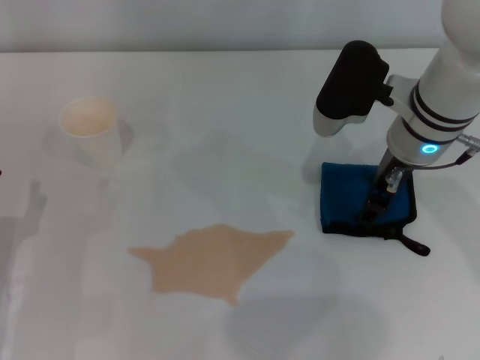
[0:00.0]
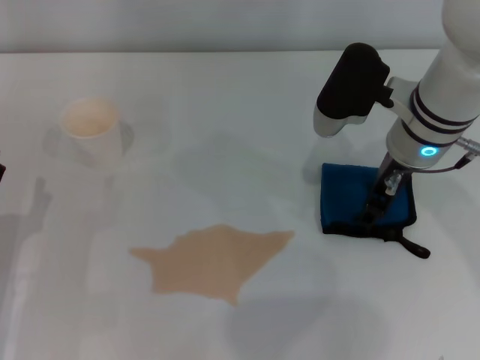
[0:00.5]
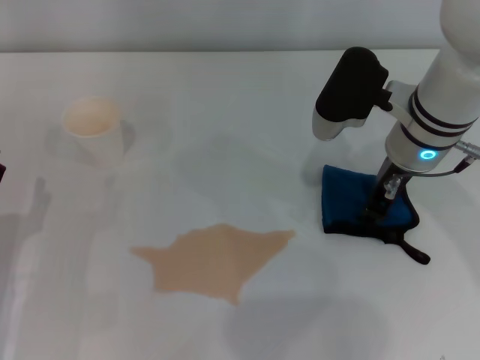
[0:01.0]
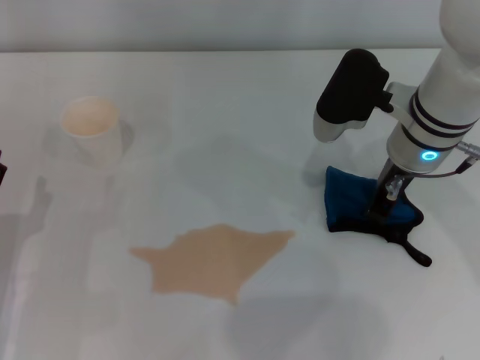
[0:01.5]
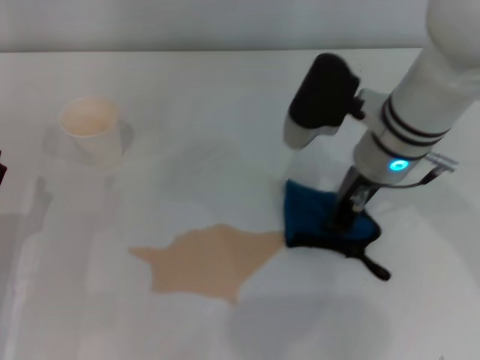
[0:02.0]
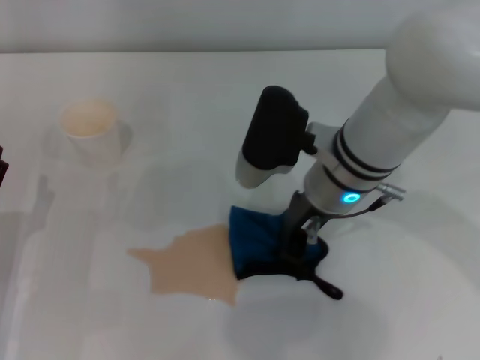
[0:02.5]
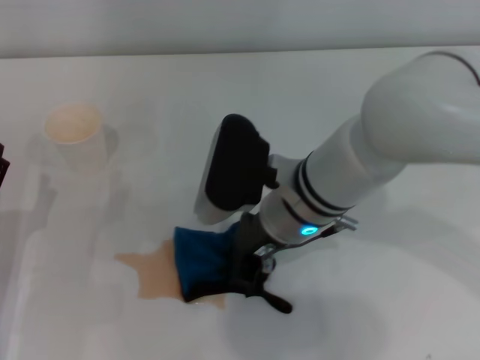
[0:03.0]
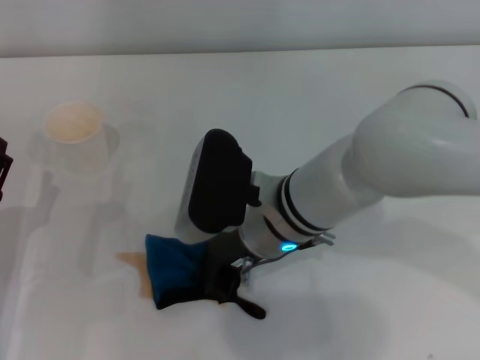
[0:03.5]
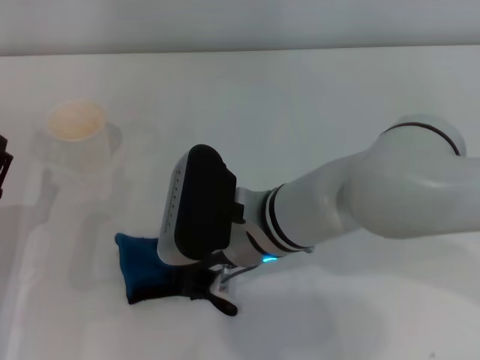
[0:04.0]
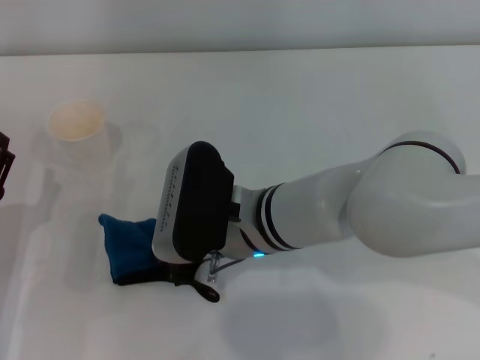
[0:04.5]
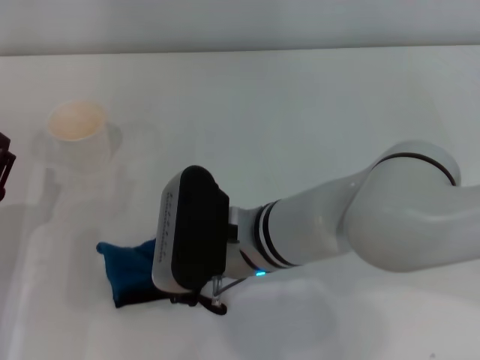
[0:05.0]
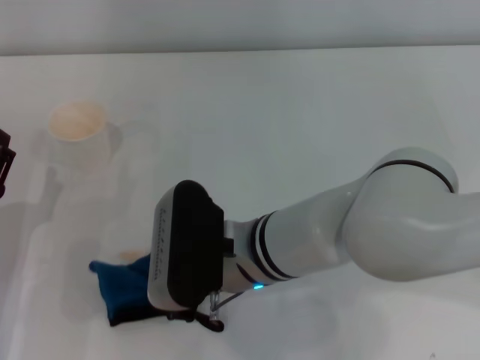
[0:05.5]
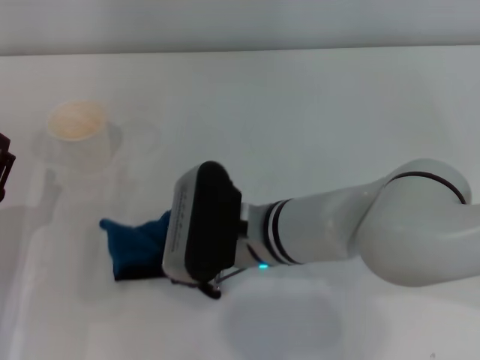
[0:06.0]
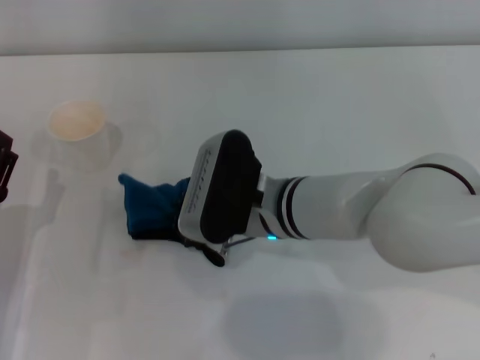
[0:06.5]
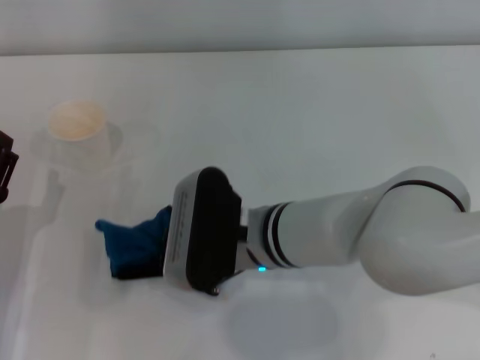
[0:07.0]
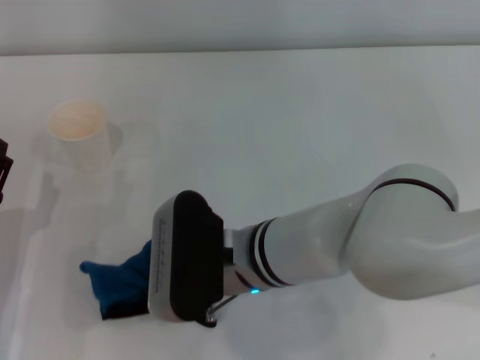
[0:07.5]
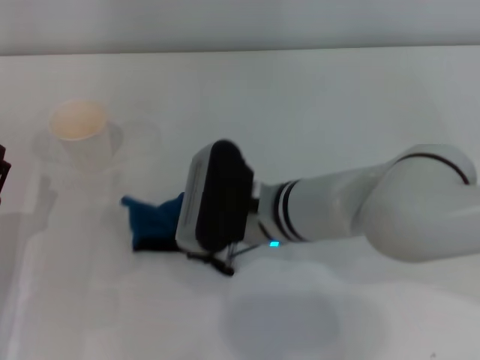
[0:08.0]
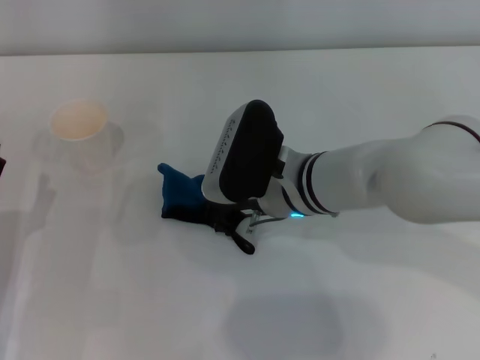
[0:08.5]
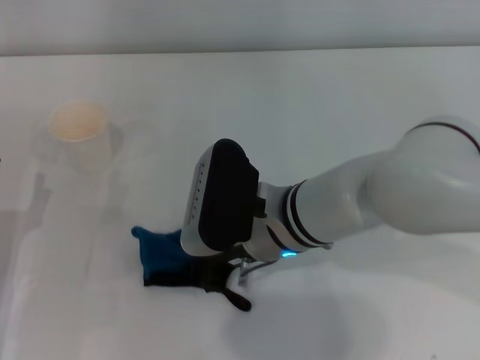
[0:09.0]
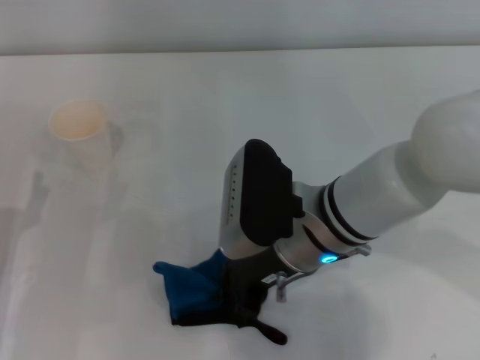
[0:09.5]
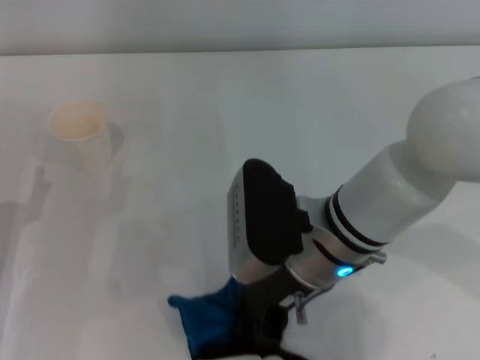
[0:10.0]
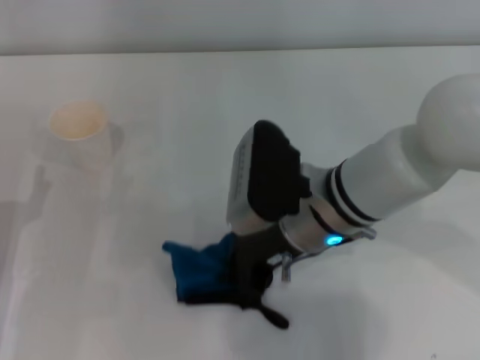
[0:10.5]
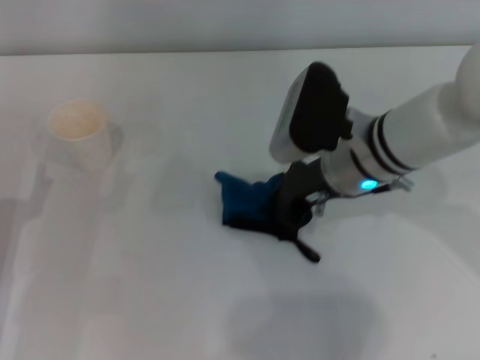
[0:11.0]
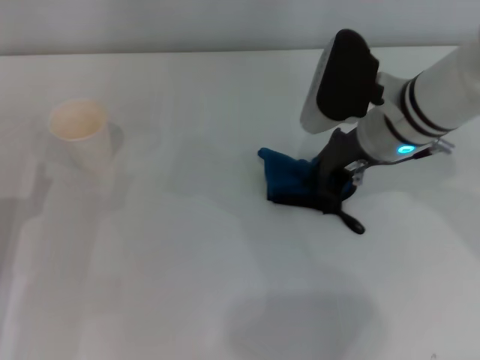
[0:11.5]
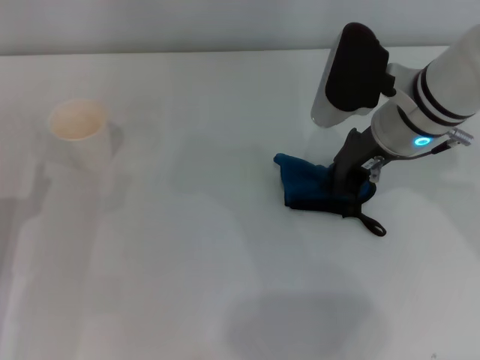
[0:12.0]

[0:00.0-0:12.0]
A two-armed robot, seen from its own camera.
0:00.0 to 0:02.0: The right gripper closes up.
0:02.0 to 0:04.0: The right gripper is displaced to the left and backward by some 15 cm.
0:04.0 to 0:08.0: The grippers move only a little.
0:08.0 to 0:10.0: The right gripper ends up some 5 cm from where it was.
0:10.0 to 0:12.0: The right gripper moves forward and to the right, roughly 15 cm.

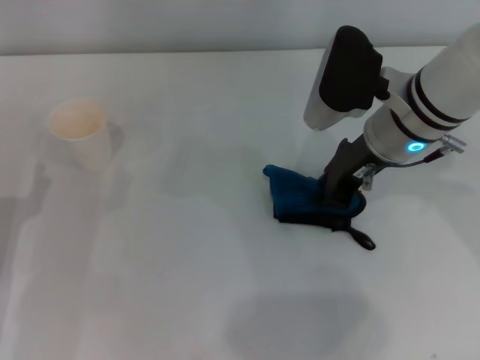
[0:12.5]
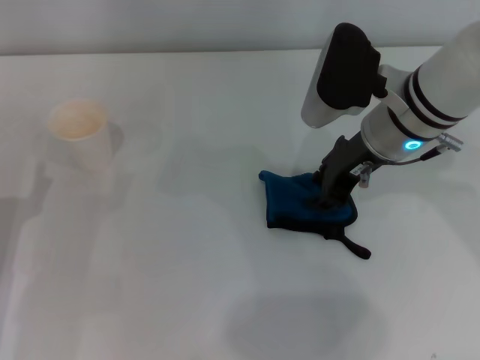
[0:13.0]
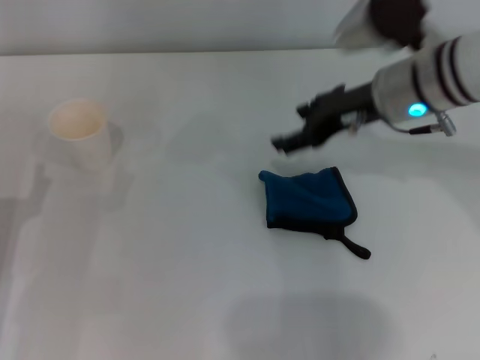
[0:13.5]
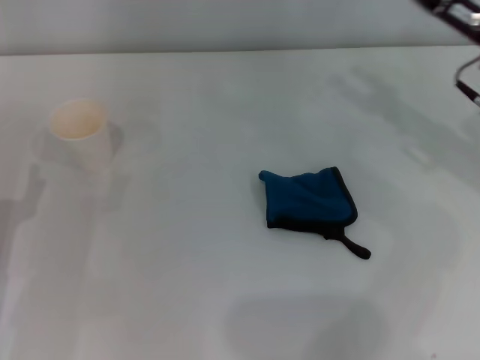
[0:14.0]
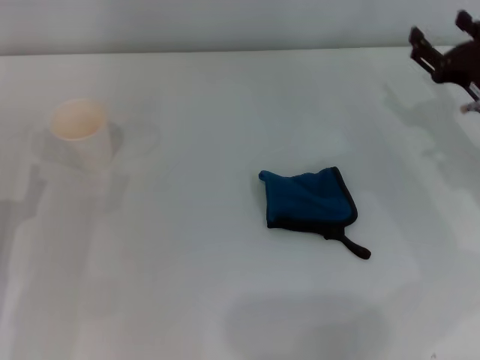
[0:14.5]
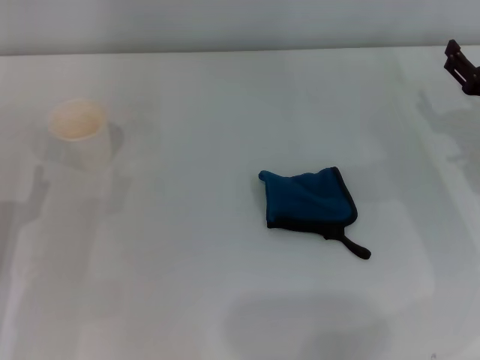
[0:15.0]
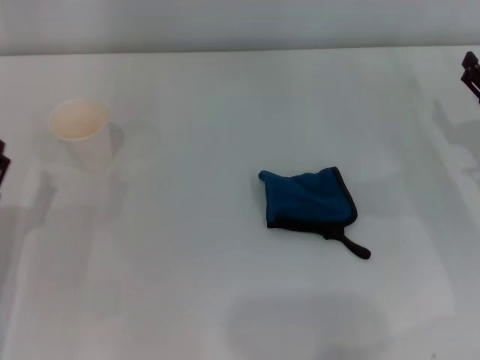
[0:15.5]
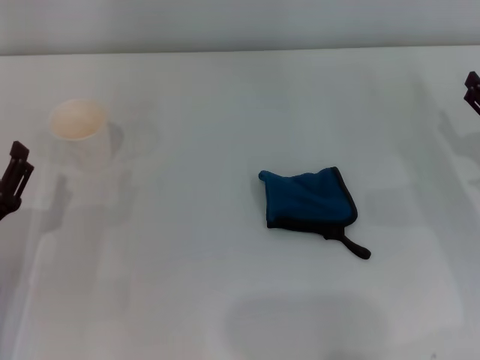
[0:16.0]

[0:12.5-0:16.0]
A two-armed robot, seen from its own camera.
Step, 0:12.5 to 0:13.0: Place the rag on the table with the right gripper.
0:12.5 to 0:14.5: The right gripper moves to the right and downward, about 15 cm, and opens its fingers.
0:14.5 to 0:16.0: The right gripper travels backward by about 5 cm.

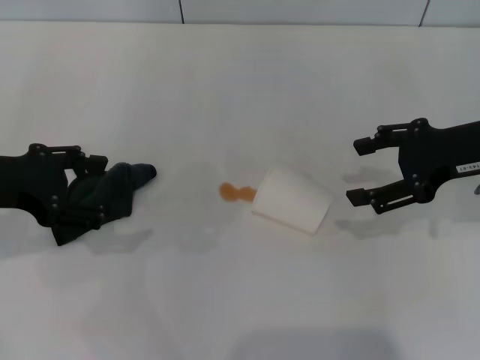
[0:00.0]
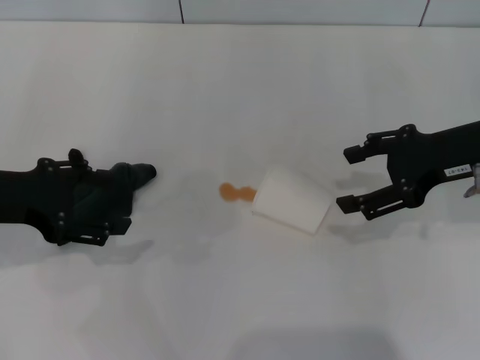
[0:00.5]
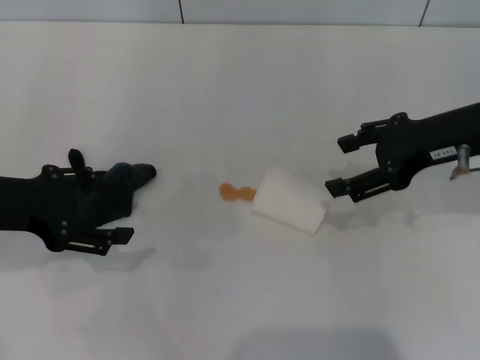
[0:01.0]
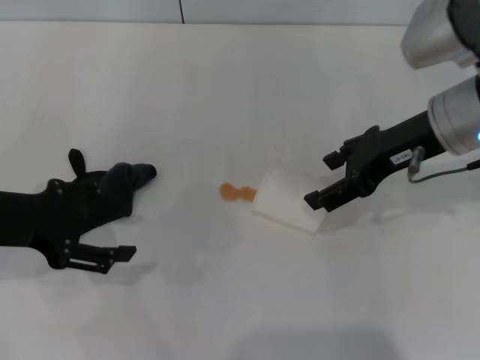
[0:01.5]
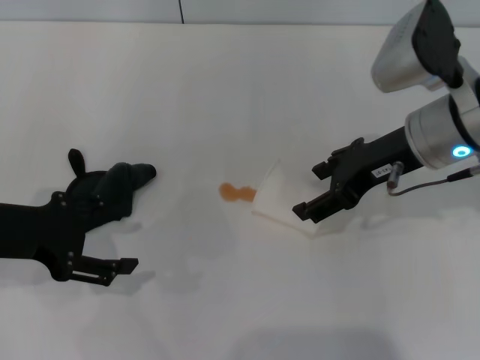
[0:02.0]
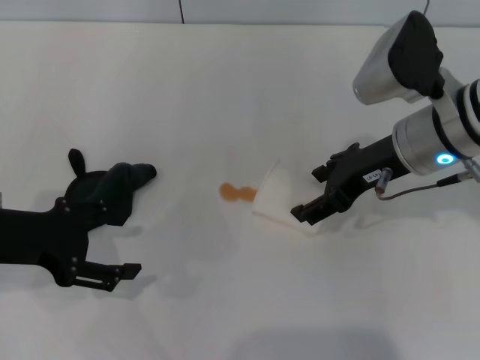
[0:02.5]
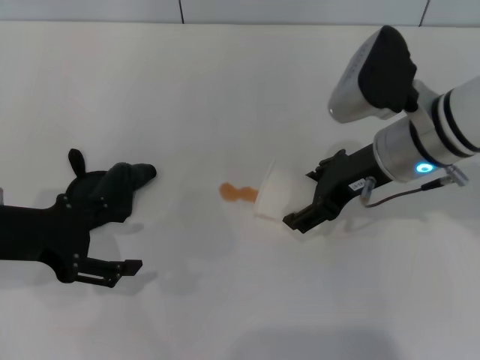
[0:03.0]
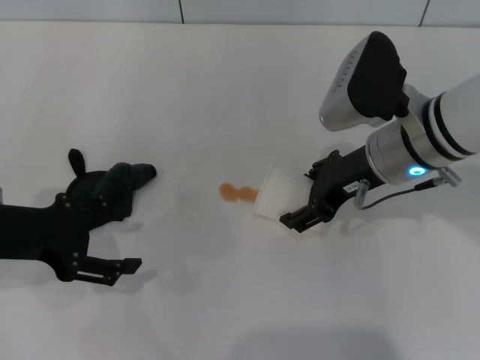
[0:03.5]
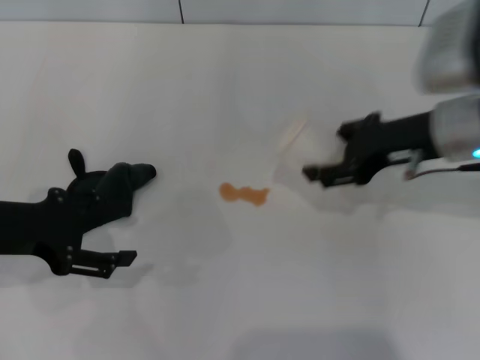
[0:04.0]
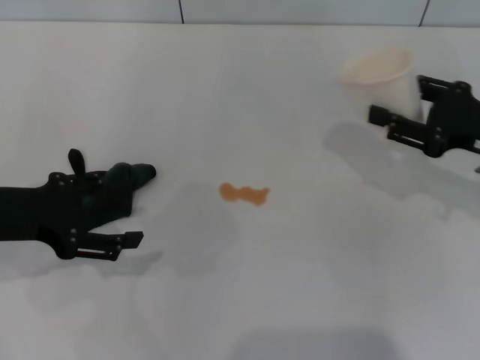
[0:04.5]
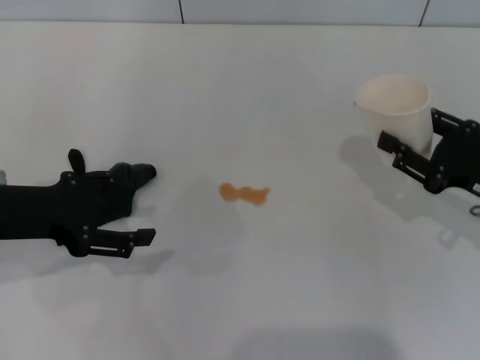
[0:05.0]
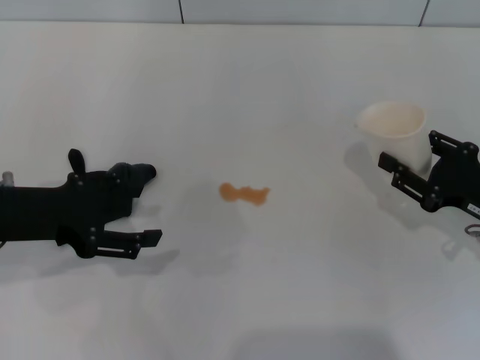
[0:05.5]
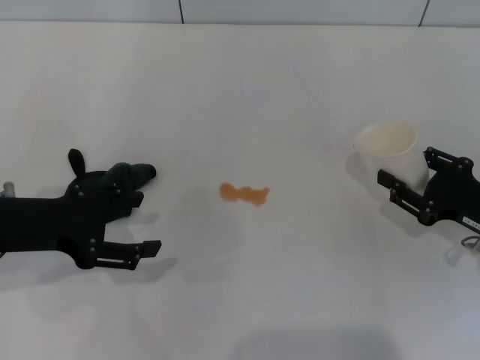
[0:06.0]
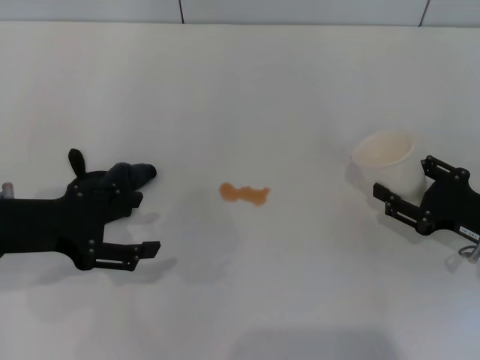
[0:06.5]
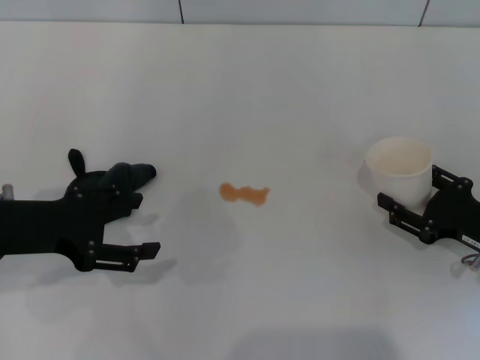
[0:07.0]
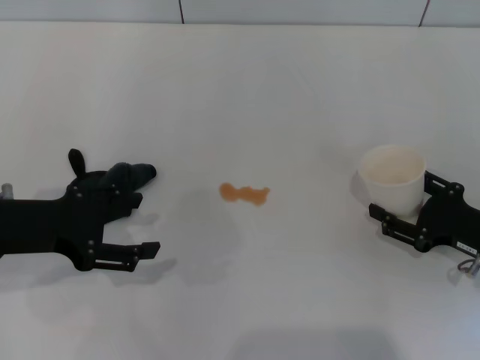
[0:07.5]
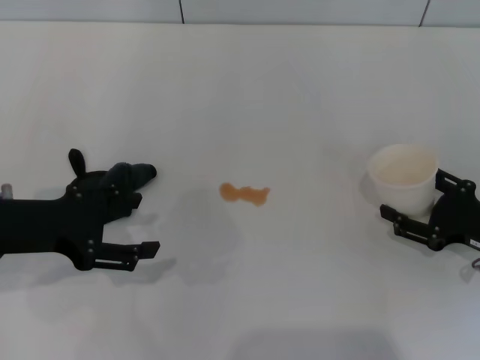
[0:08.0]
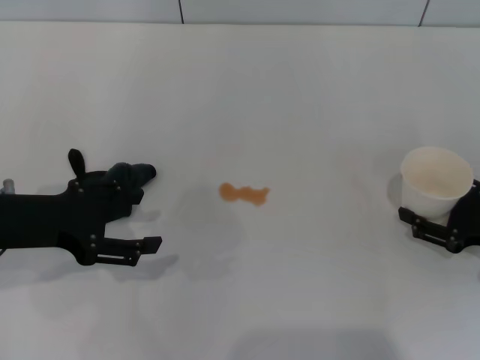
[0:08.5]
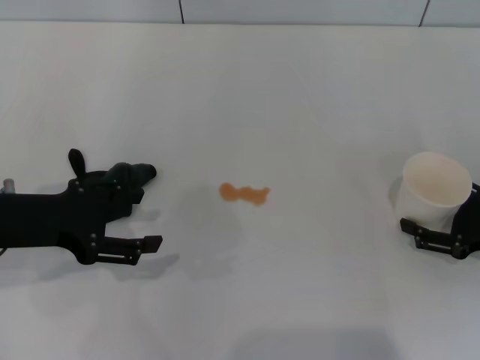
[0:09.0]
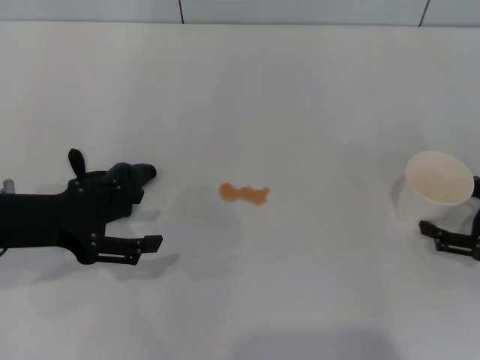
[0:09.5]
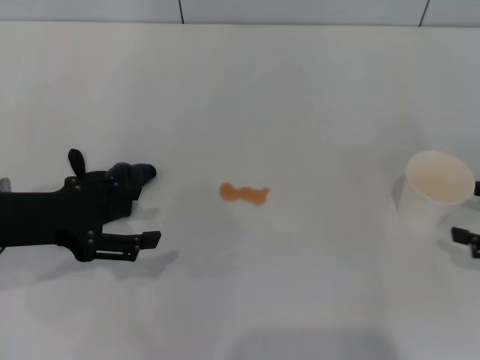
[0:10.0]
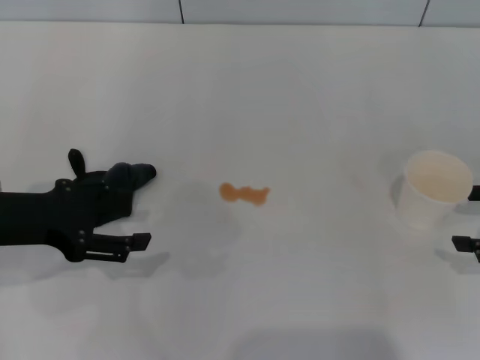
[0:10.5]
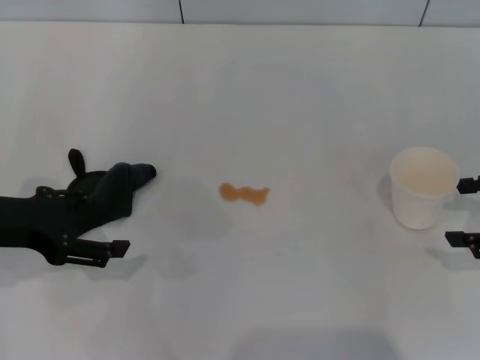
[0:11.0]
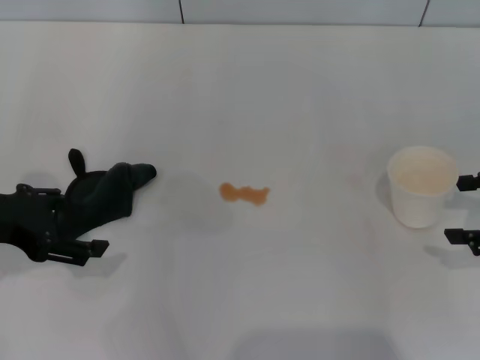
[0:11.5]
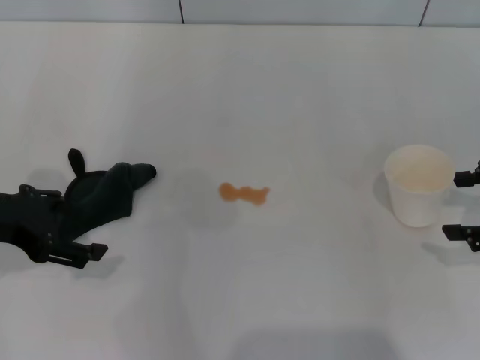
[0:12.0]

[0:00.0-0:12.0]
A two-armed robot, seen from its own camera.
Step, 0:00.0 to 0:03.0: Grasp the paper cup with the right gripper.
Step, 0:03.5 to 0:09.5: Stand the paper cup upright with the right gripper.
0:00.0 to 0:02.0: The right gripper goes approximately 10 cm to the left.
0:02.0 to 0:04.0: The right gripper closes.
0:04.0 to 0:06.0: The right gripper is displaced downward, to the right and backward by about 20 cm.
0:06.0 to 0:08.0: The right gripper opens up.
0:08.0 to 0:10.0: The right gripper heads to the right and upward, covering about 10 cm, and opens up.
0:10.0 to 0:12.0: The right gripper heads upward, covering some 5 cm.
